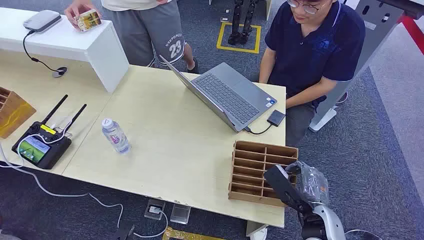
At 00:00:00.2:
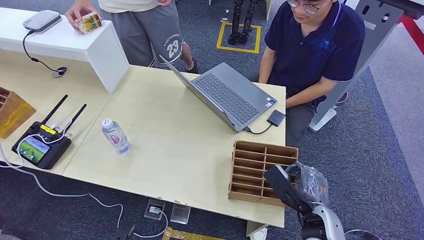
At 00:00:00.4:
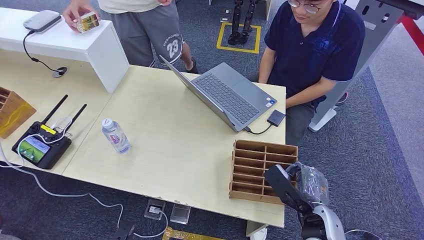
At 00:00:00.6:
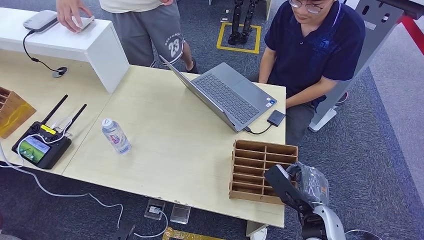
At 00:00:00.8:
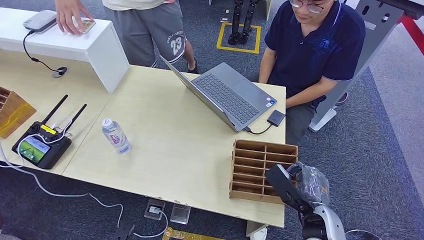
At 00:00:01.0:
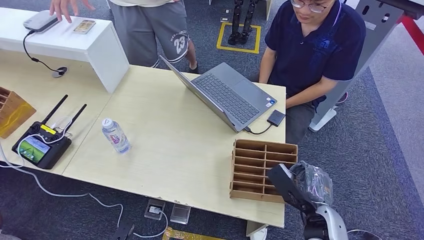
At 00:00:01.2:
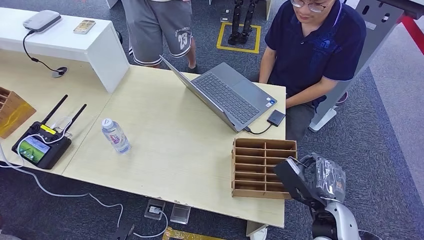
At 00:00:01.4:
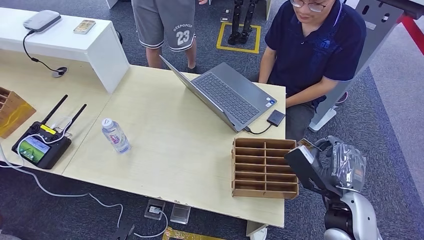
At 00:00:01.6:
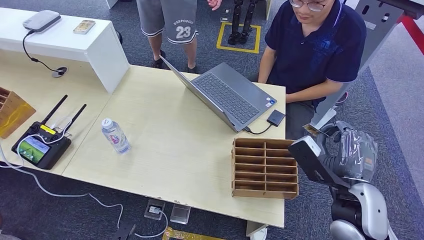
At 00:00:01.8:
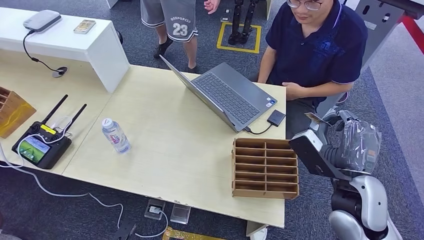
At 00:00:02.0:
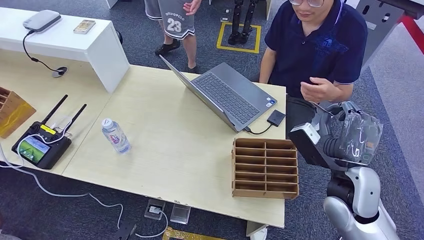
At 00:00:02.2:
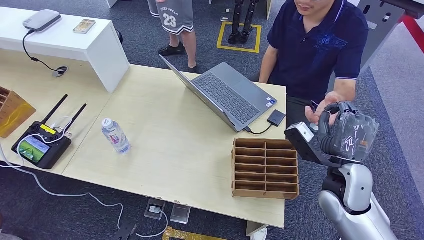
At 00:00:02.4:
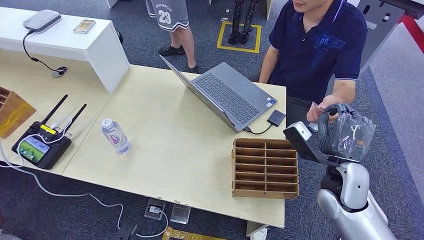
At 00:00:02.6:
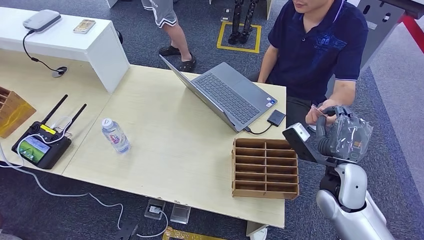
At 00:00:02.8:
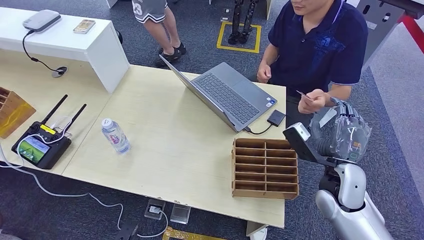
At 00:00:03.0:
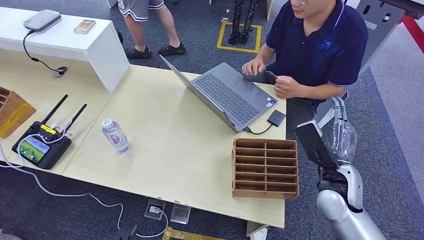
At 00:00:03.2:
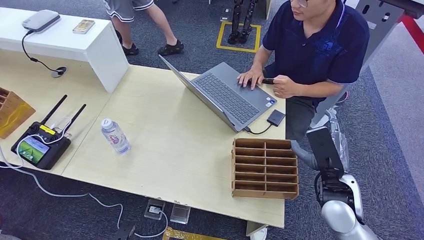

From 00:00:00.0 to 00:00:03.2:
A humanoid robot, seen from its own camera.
Task of the whole recording: Pick up the card and hand it over to the target person.
Step, from 00:00:00.0 to 00:00:01.4: Pick up the key card from the card box.
Step, from 00:00:01.6 to 00:00:03.2: Hand the key card to the target.
From 00:00:01.6 to 00:00:03.2: The right hand shifts by roughly 5 cm.
